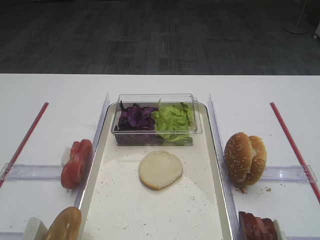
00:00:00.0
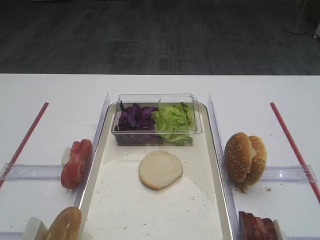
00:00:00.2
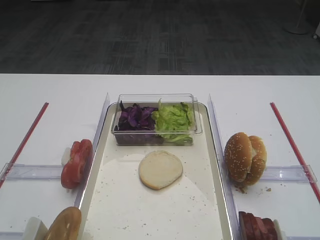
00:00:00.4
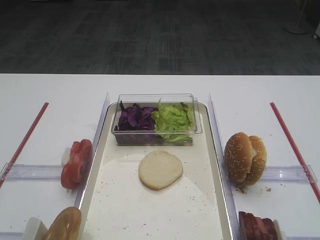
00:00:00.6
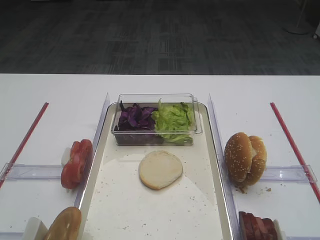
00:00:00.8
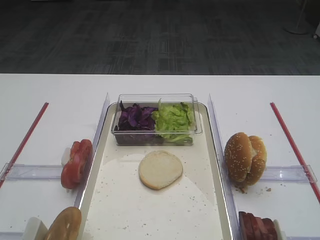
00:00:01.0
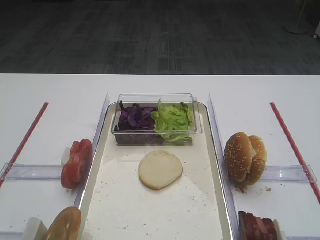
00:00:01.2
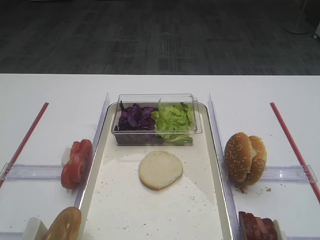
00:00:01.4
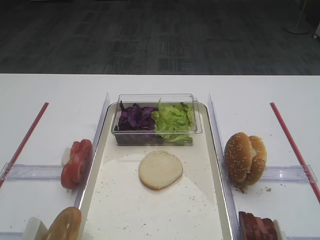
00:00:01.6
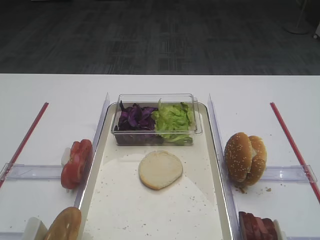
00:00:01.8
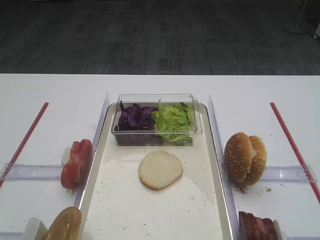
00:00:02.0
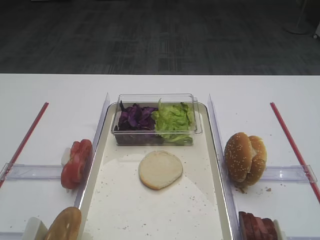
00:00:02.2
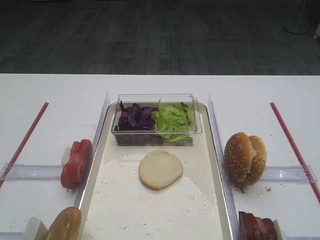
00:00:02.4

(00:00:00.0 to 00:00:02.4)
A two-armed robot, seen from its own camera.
00:00:00.0 - 00:00:02.4: Neither gripper changes place.

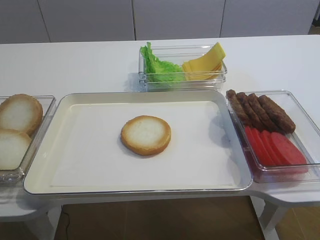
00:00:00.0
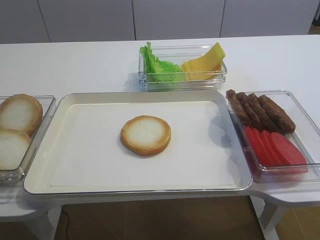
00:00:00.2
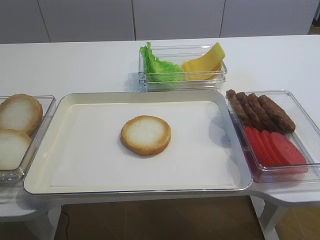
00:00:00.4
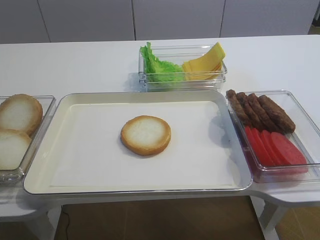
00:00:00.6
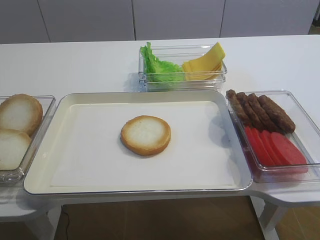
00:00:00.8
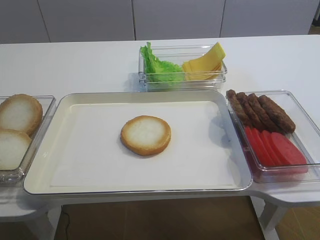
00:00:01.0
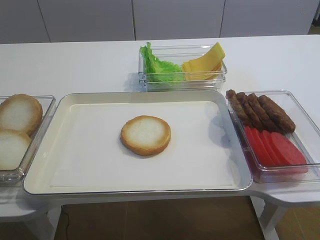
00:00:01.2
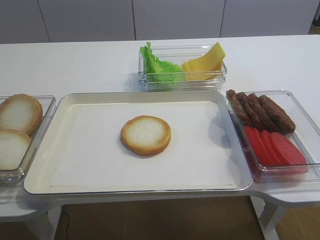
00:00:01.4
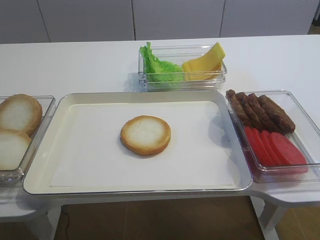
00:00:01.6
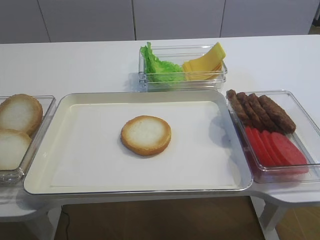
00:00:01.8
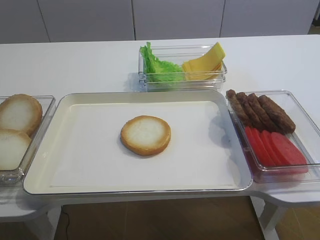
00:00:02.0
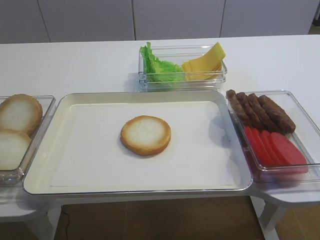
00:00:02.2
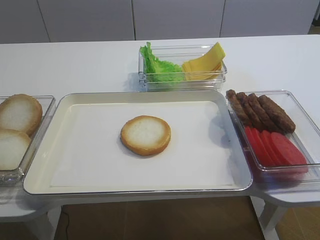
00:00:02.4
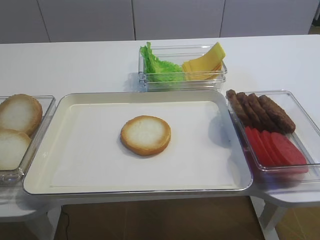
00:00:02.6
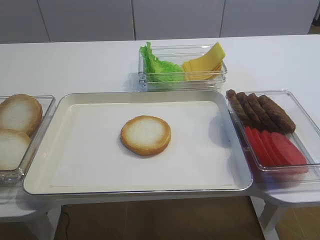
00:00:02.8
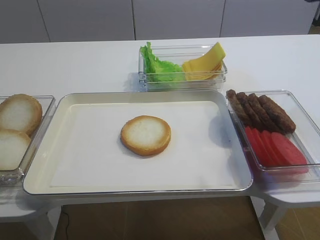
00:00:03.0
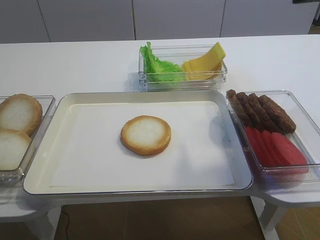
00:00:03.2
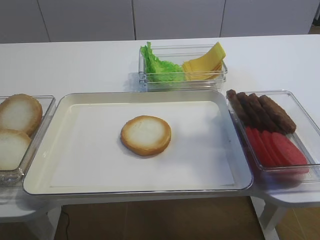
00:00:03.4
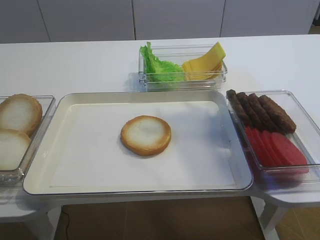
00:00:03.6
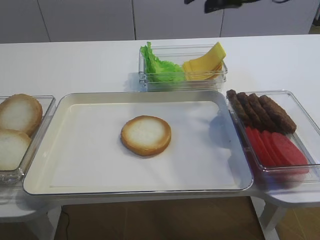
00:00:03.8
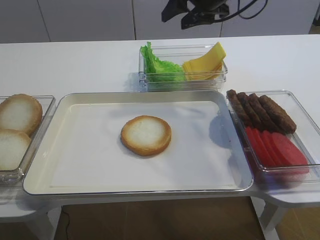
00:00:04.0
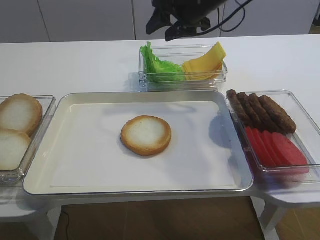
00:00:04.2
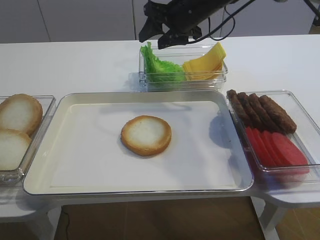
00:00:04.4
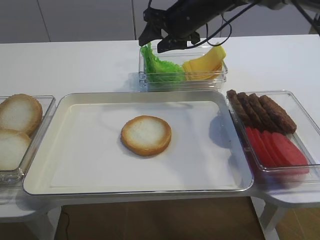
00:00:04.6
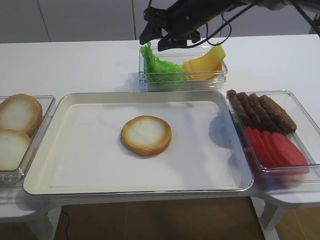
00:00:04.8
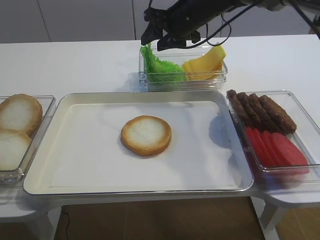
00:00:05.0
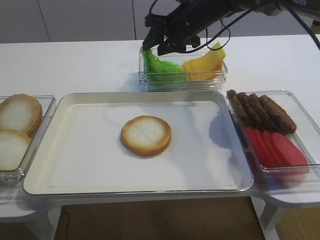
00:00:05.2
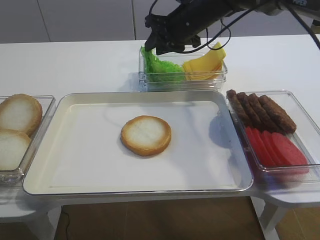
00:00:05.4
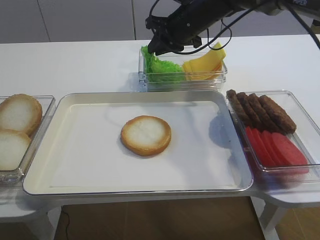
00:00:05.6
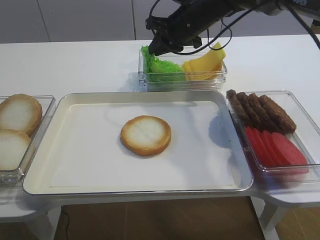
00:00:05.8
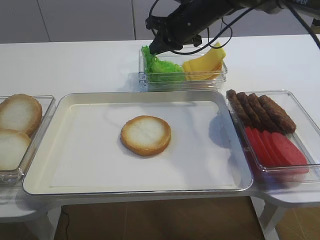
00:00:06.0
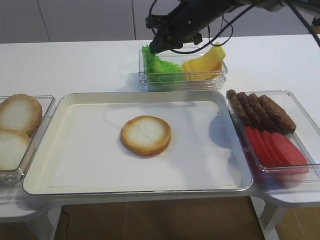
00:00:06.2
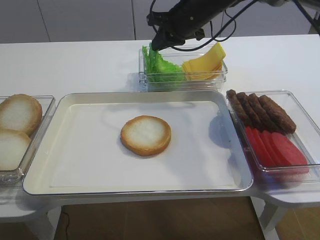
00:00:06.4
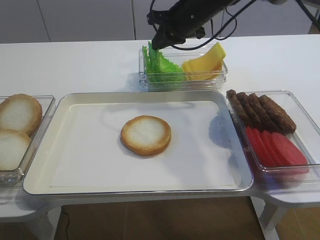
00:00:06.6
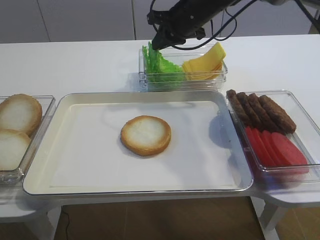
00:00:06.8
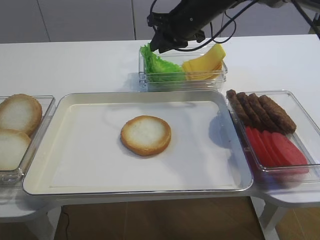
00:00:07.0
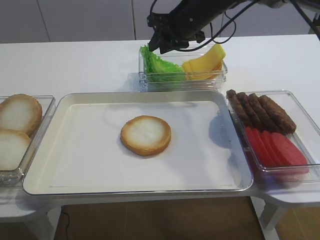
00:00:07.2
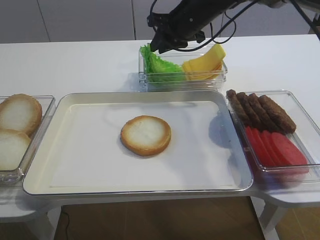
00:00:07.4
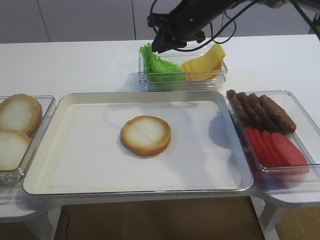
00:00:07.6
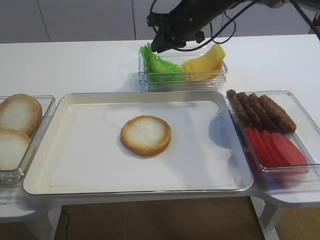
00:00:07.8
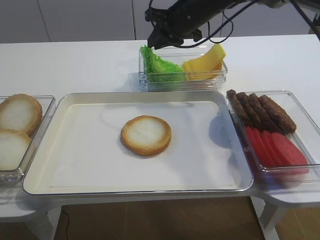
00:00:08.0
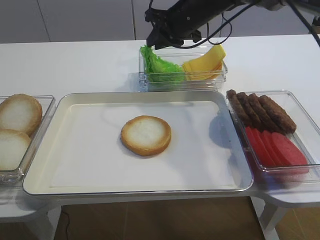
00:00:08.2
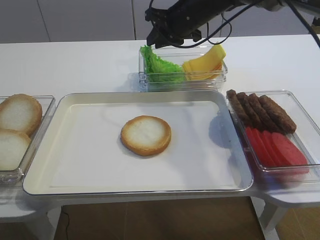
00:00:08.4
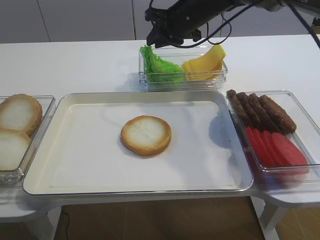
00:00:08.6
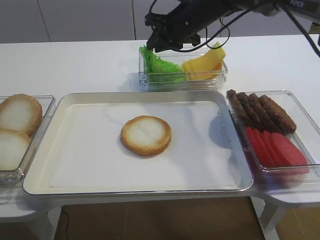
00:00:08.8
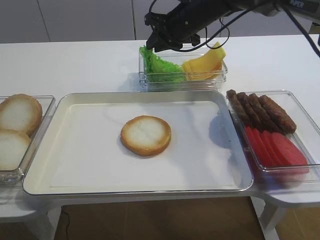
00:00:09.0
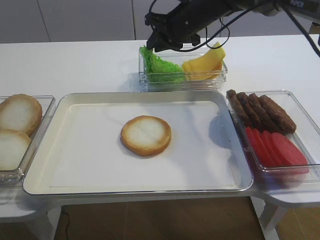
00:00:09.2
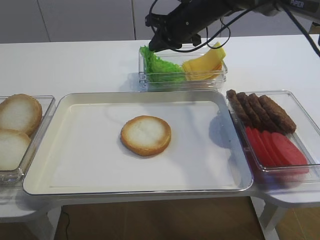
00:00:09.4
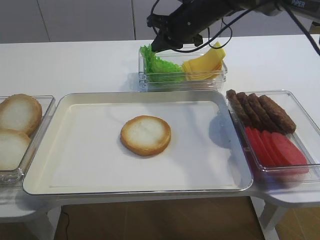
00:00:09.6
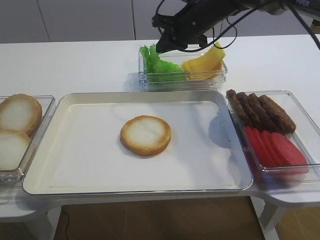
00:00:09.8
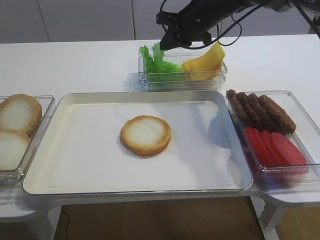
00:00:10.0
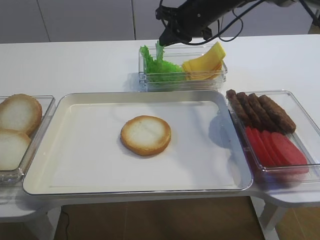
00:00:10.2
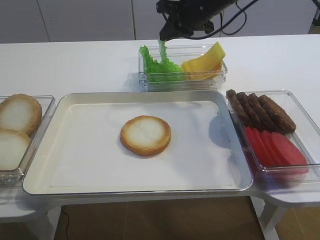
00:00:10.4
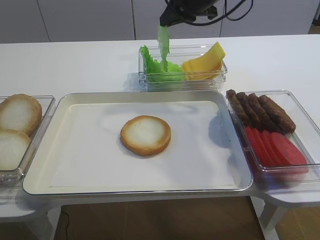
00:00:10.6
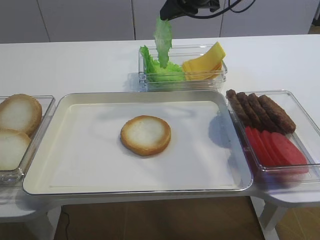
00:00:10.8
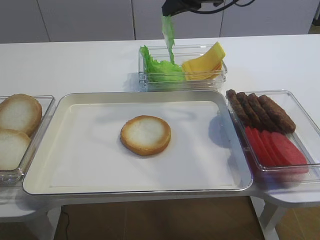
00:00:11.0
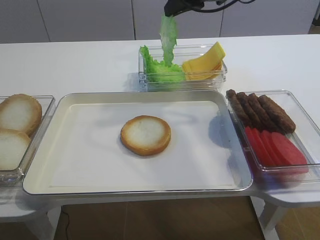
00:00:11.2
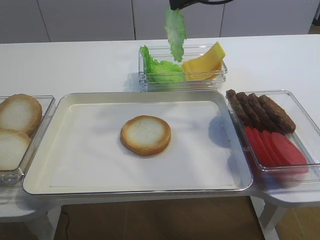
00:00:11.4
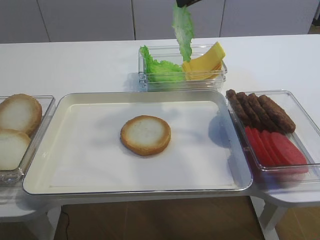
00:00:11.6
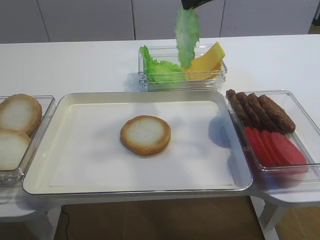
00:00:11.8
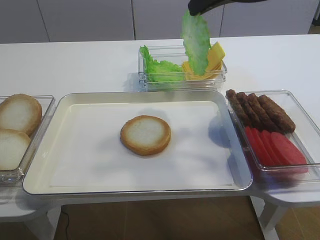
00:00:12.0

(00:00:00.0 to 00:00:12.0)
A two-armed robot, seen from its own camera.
Step, 00:00:00.0 - 00:00:10.0: Pick up the lettuce leaf with the right gripper.
00:00:01.6 - 00:00:03.0: The right gripper travels forward and upward by approximately 25 cm.
00:00:03.0 - 00:00:04.4: The right gripper heads forward, to the left and downward, covering approximately 35 cm.
00:00:04.4 - 00:00:06.0: The right gripper closes up.
00:00:06.0 - 00:00:09.0: The grippers make only small movements.
00:00:09.0 - 00:00:10.4: The right gripper closes its fingers.
00:00:10.4 - 00:00:12.0: The right gripper is displaced backward and upward by roughly 15 cm.

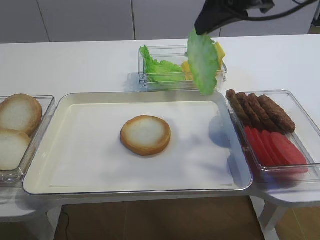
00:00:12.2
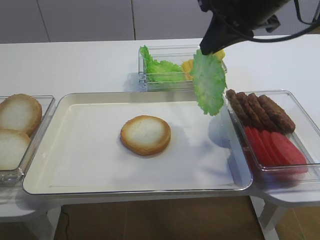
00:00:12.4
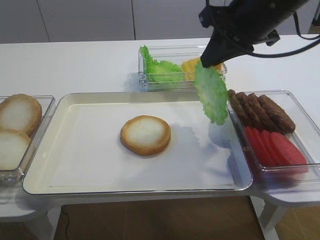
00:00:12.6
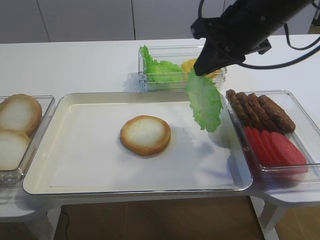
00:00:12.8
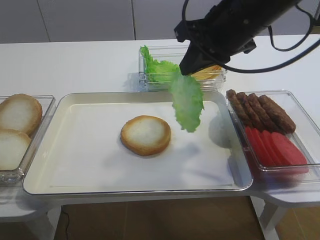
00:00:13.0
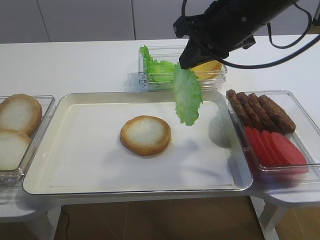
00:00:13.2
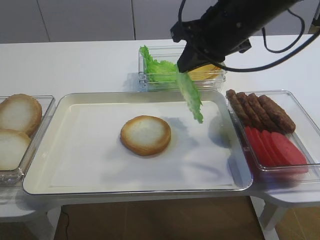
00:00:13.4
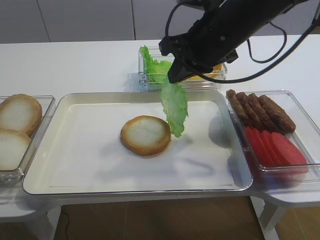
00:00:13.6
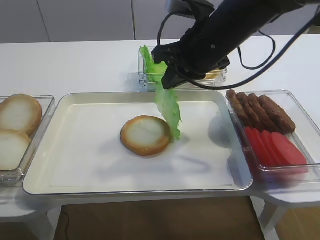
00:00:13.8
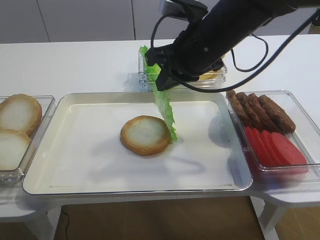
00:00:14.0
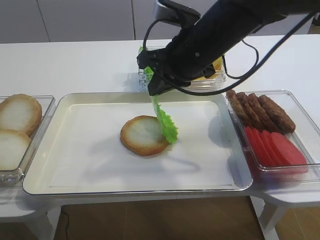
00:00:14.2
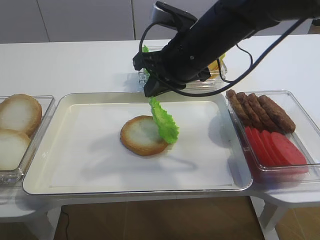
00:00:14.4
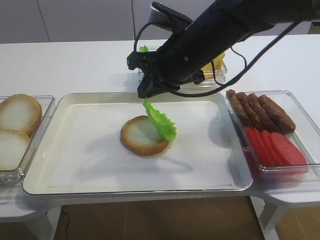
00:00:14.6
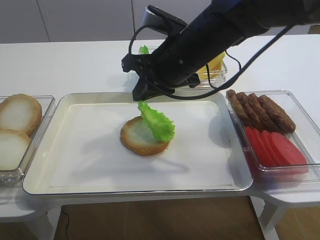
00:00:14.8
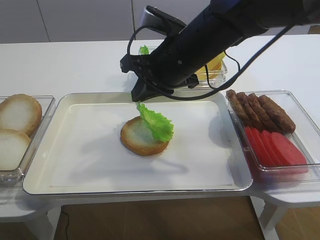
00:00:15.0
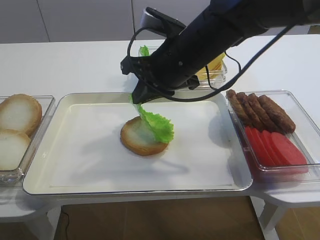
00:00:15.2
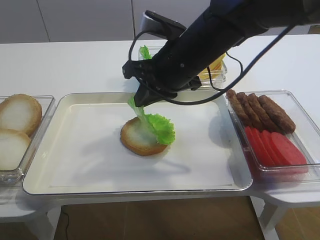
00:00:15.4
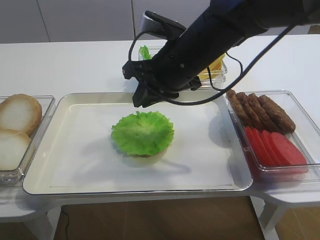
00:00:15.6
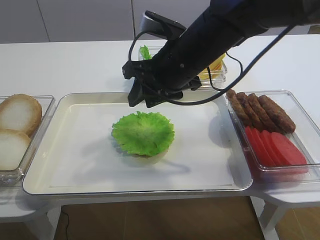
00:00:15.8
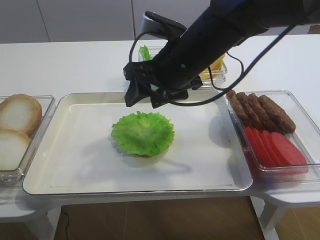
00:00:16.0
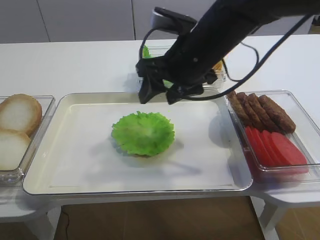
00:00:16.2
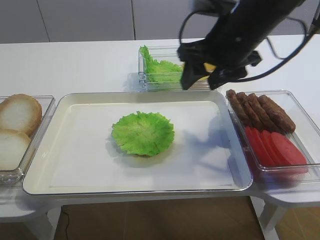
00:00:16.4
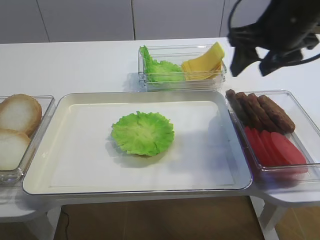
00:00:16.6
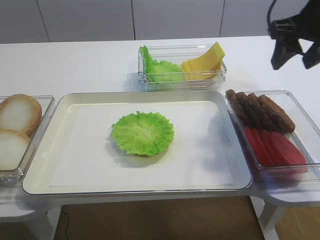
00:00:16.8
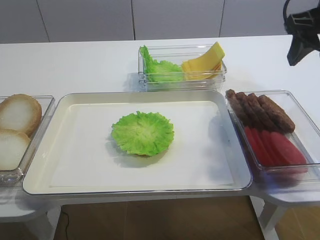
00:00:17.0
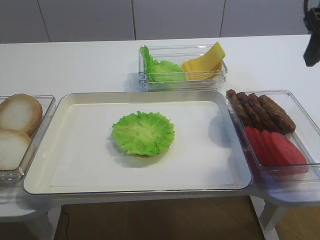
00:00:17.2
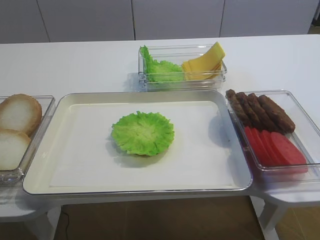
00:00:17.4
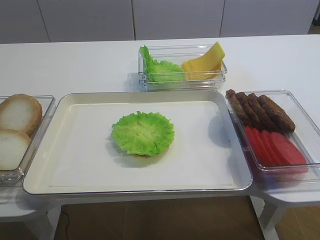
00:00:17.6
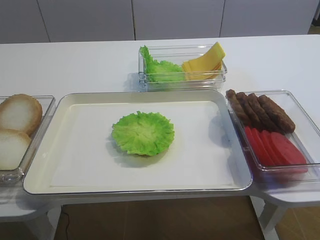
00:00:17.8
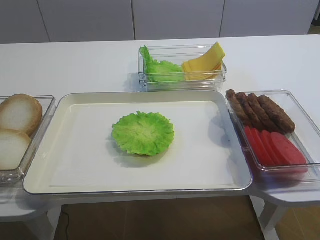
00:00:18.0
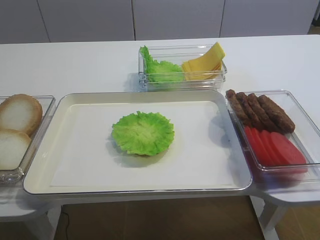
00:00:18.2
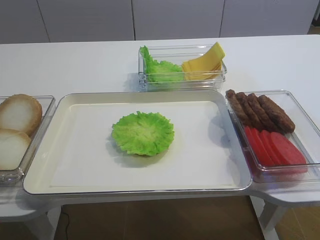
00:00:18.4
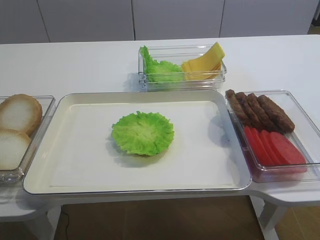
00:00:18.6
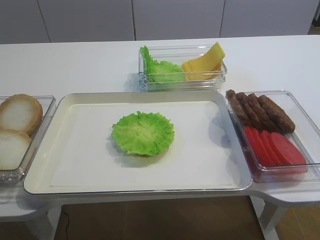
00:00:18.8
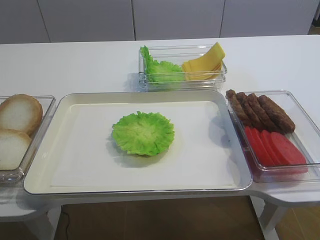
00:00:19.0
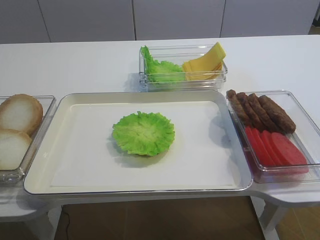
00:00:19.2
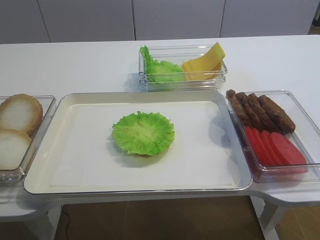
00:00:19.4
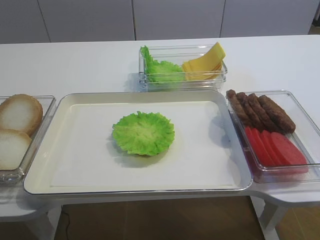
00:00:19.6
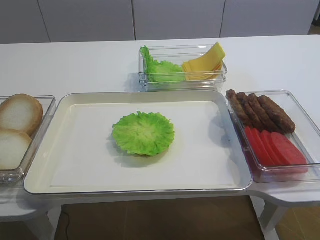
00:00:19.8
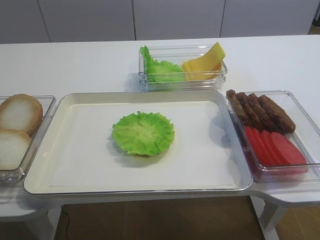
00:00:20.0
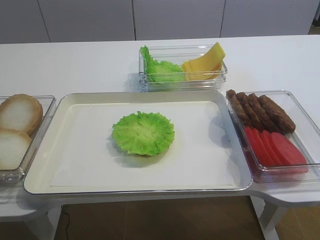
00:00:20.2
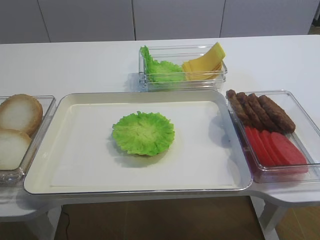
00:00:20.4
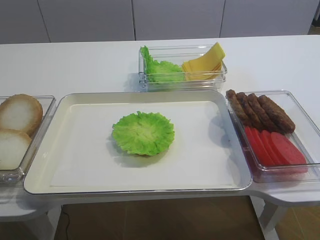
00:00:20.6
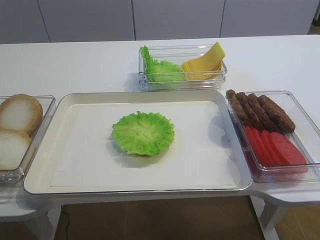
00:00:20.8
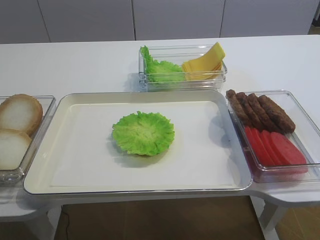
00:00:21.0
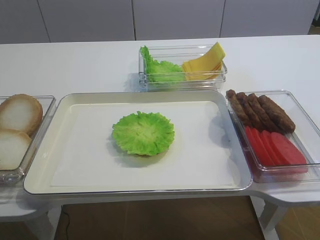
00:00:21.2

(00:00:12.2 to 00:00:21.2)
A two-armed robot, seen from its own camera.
Step, 00:00:12.2 - 00:00:15.4: Place the lettuce leaf on the bread slice with the right gripper.
00:00:12.2 - 00:00:13.8: The right gripper shifts approximately 10 cm downward and to the left.
00:00:13.8 - 00:00:15.2: There are only small adjustments of the grippers.
00:00:15.2 - 00:00:16.6: The right gripper goes roughly 15 cm to the right, and opens up.
00:00:16.6 - 00:00:18.2: The right gripper is displaced backward by approximately 30 cm.
00:00:18.2 - 00:00:19.8: The right gripper shifts approximately 5 cm downward.
00:00:19.8 - 00:00:21.2: Both grippers stay put.
